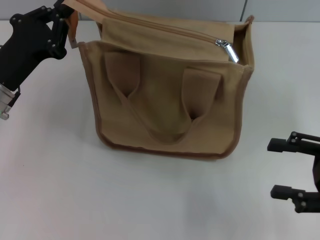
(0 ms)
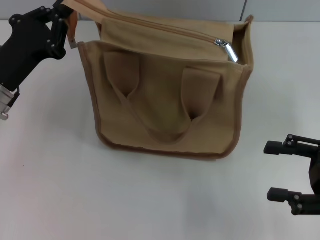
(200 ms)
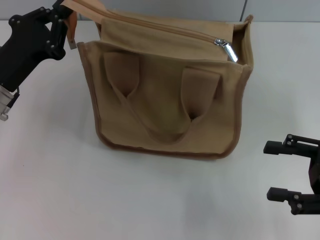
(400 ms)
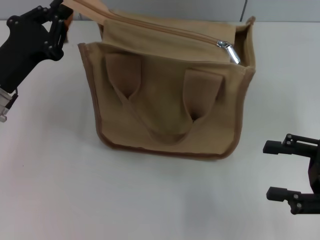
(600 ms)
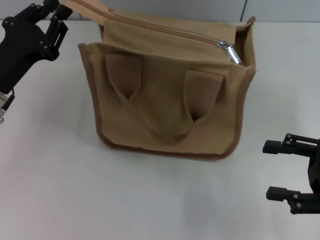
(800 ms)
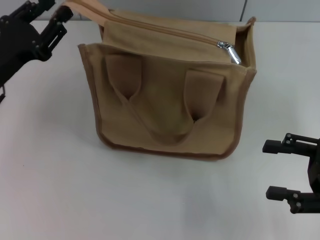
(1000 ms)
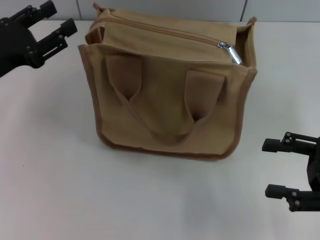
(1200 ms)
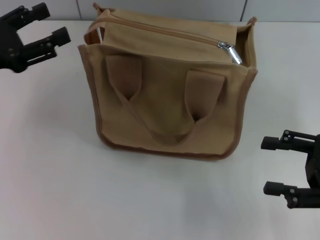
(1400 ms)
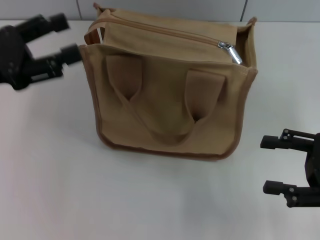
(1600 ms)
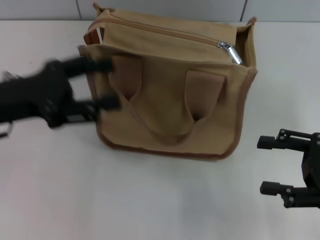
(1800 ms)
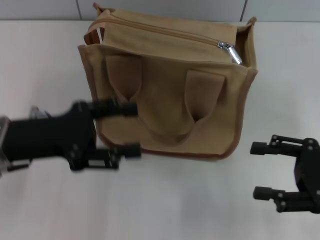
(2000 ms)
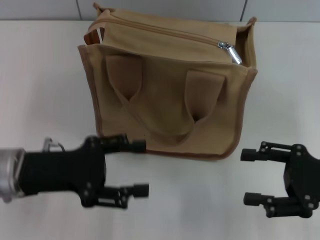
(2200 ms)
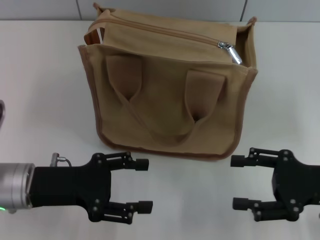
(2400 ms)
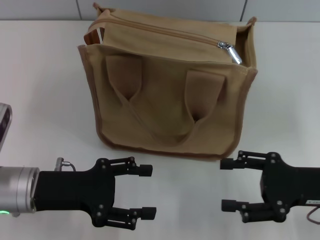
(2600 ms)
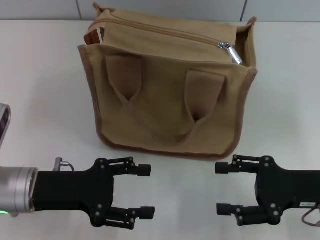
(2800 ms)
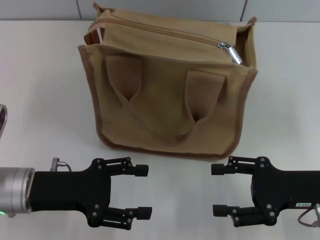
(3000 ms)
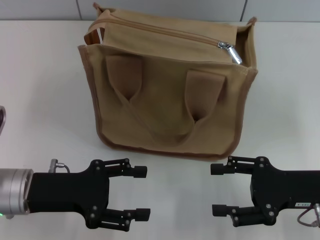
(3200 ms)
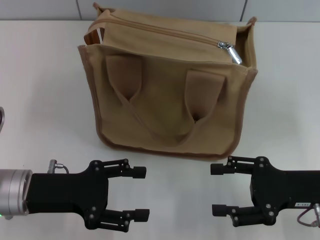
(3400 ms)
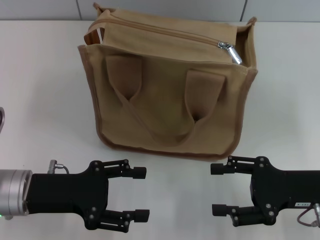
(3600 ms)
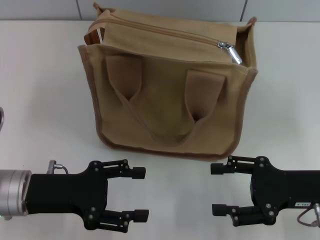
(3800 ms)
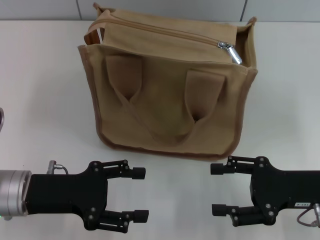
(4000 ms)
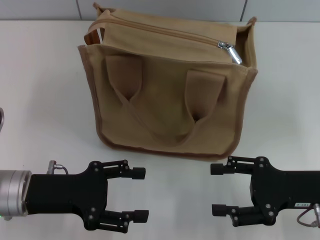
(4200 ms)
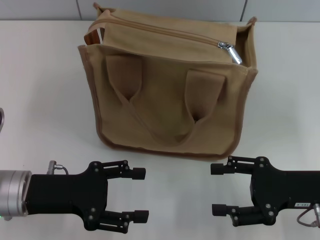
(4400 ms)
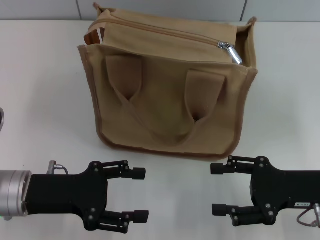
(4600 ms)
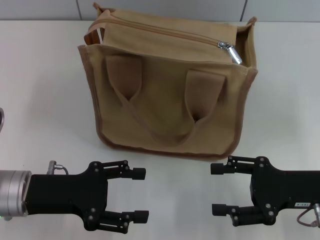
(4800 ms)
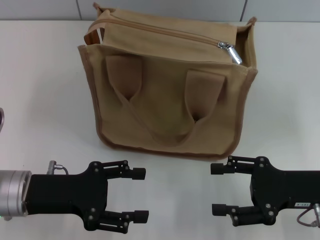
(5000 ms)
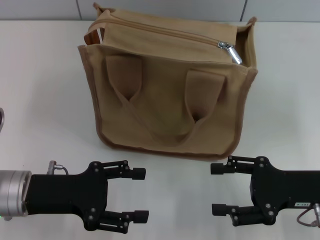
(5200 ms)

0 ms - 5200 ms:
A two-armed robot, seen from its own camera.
0 ms - 1800 ms: The left gripper heads upward, covering about 5 cm, and opens.
1800 ms - 3400 ms: The right gripper moves to the left, roughly 5 cm; the left gripper goes about 10 cm downward.
3400 ms - 5200 ms: Both grippers stay about where they are.

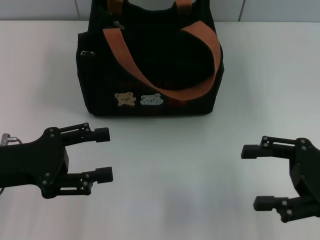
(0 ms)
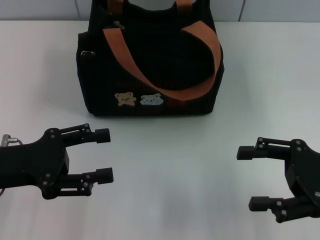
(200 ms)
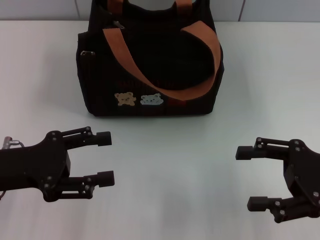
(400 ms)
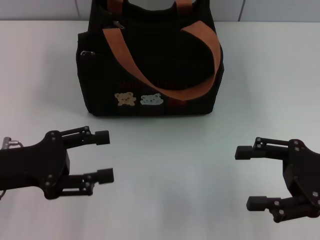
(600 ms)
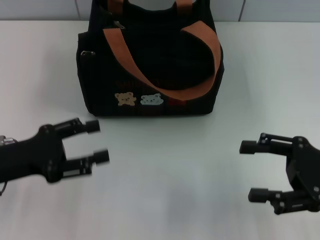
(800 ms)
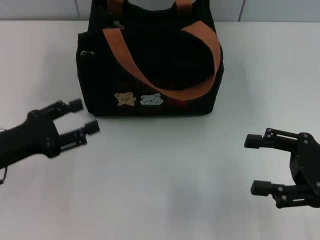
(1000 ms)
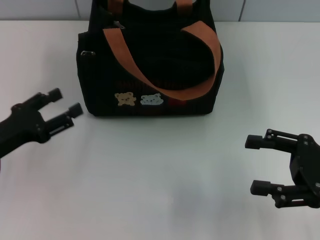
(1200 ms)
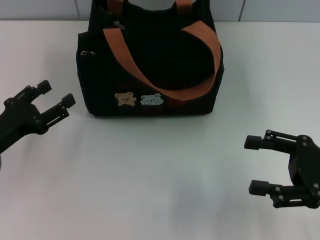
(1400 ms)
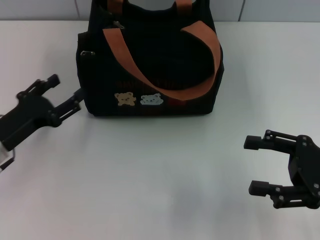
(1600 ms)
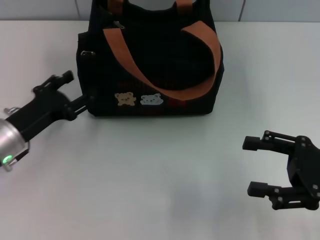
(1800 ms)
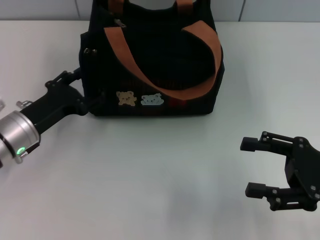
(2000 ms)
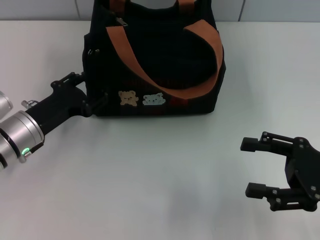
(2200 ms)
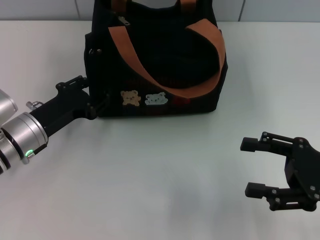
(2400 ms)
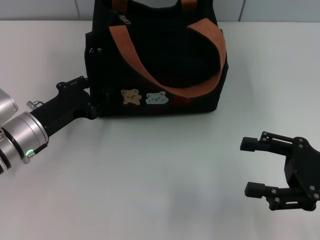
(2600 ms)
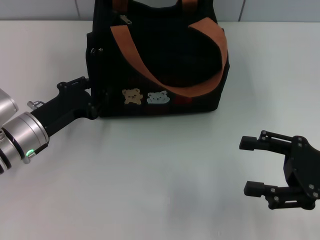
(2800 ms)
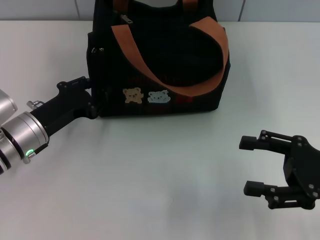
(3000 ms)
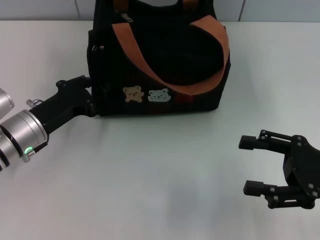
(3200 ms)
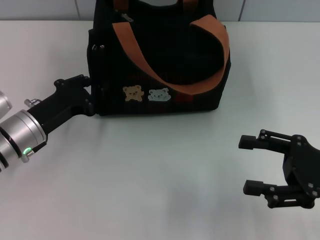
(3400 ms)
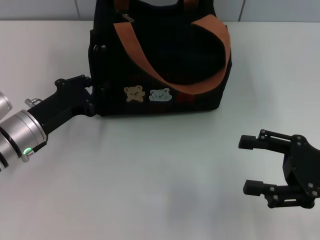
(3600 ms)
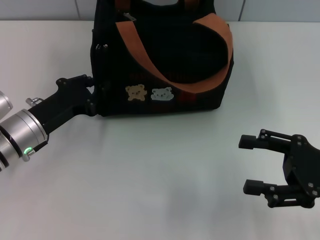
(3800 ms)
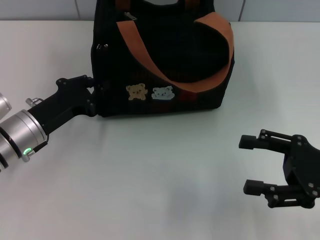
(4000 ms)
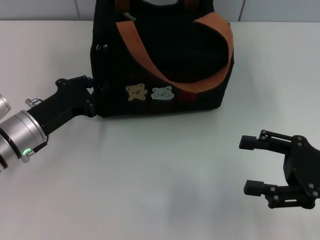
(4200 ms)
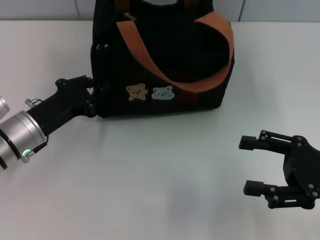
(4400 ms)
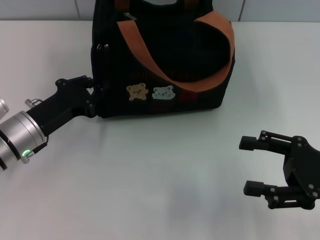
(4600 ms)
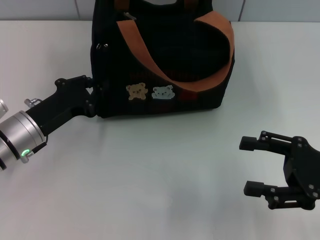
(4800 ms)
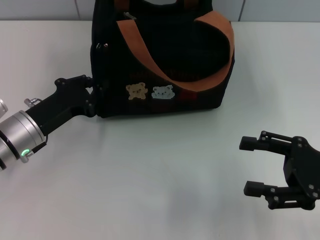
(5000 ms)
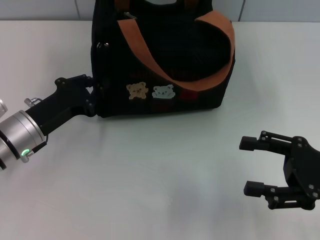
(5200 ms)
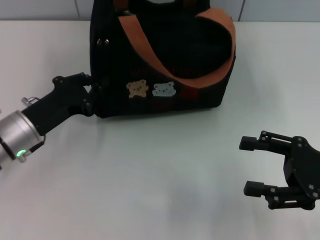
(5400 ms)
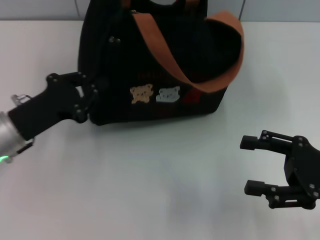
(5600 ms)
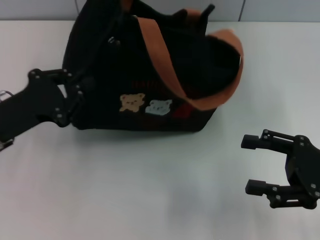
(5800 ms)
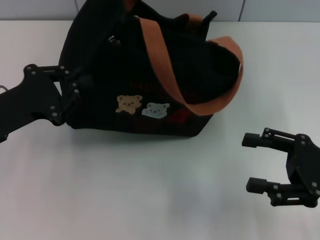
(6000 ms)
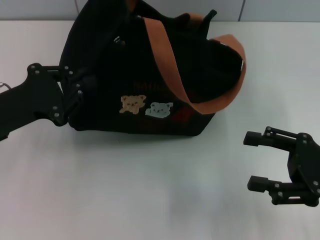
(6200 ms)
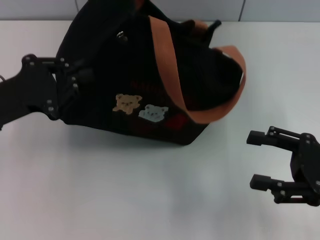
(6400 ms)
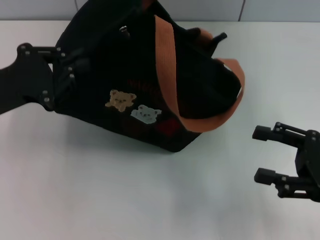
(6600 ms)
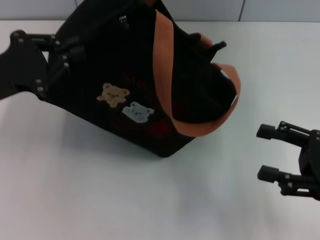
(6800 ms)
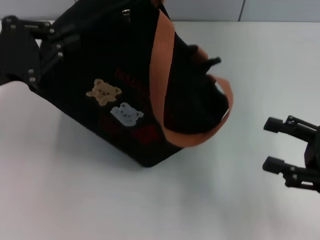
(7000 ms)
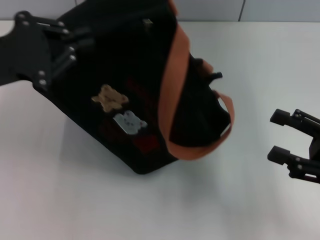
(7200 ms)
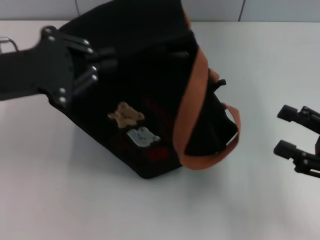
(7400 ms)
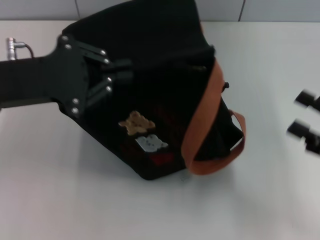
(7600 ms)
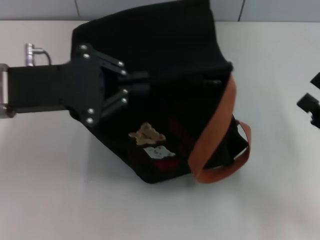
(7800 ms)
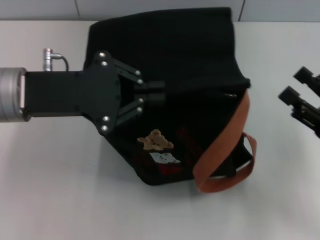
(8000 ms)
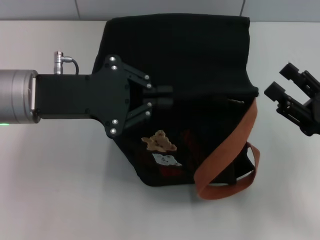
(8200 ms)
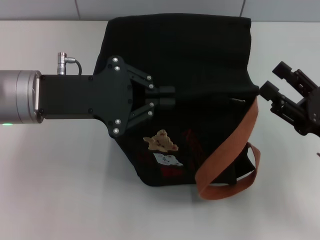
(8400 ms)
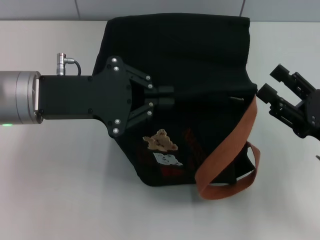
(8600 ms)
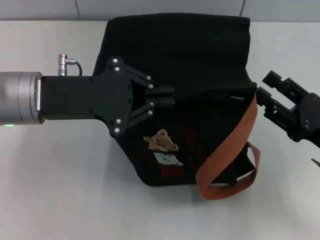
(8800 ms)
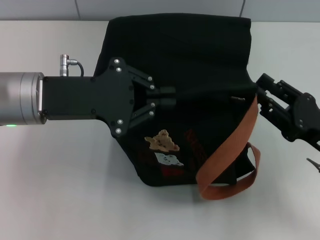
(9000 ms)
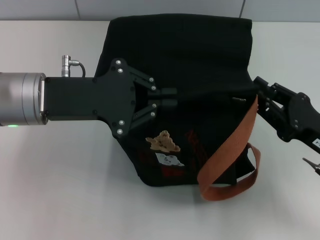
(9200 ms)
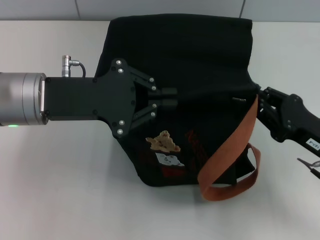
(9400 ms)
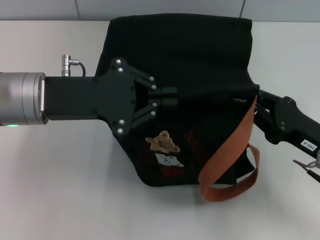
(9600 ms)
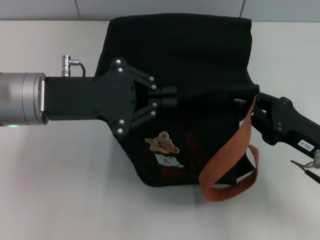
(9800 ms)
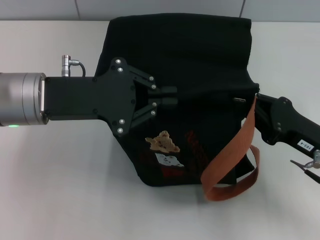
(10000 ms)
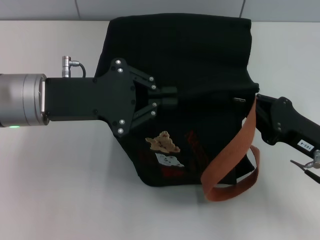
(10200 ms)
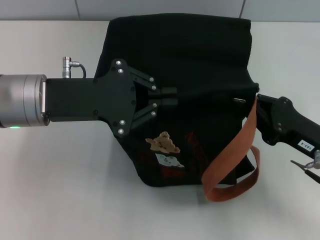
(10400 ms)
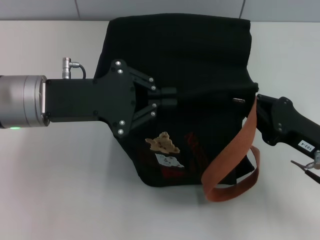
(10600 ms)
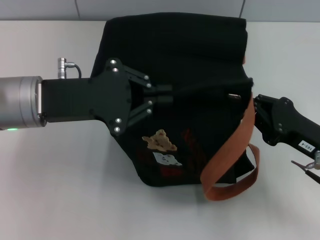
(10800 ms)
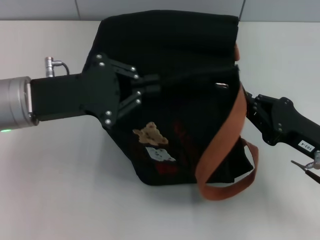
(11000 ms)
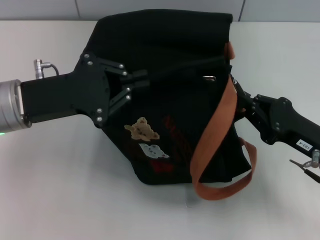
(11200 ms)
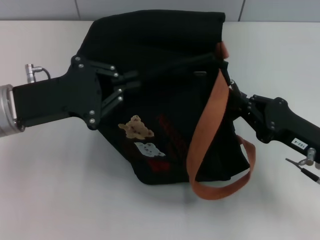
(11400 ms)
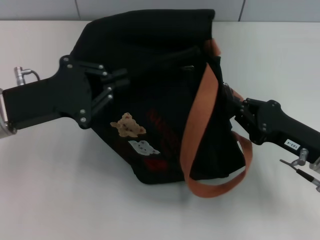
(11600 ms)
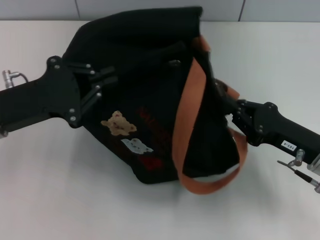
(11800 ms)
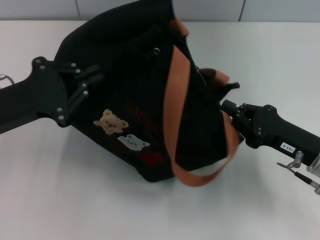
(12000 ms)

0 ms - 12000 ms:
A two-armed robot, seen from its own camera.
0 ms - 1600 ms: The left gripper shifts about 5 cm downward.
1600 ms - 3000 ms: The left gripper ends up about 5 cm from where it was, and closes.
3000 ms - 4400 ms: The two grippers keep their place.
4400 ms - 6000 ms: The left gripper moves upward, approximately 5 cm.
6000 ms - 7600 ms: The left gripper heads upward, covering approximately 10 cm.
7600 ms - 9000 ms: The right gripper is displaced to the left by about 5 cm.
9000 ms - 10400 ms: The right gripper closes.
10400 ms - 12000 ms: The left gripper is displaced to the left by some 5 cm.

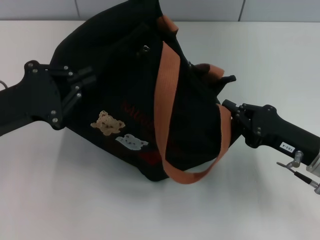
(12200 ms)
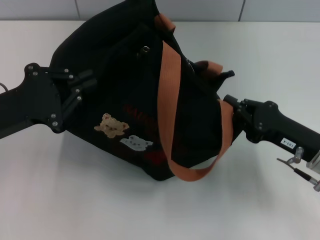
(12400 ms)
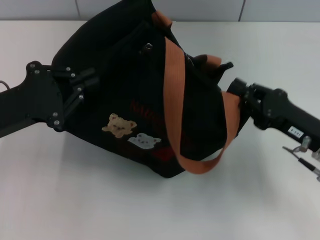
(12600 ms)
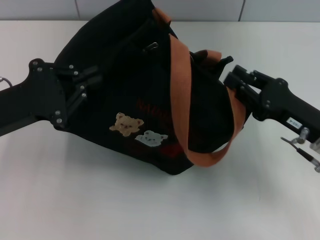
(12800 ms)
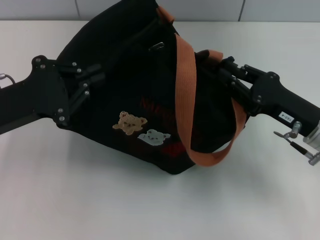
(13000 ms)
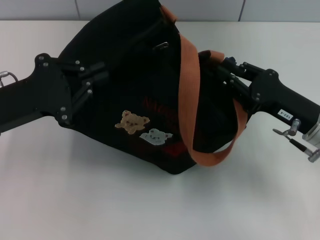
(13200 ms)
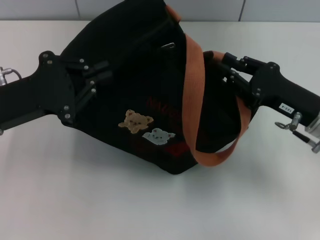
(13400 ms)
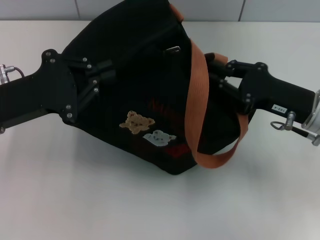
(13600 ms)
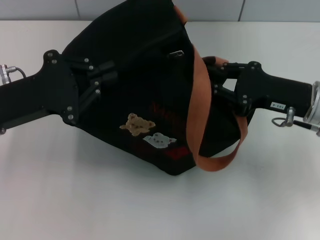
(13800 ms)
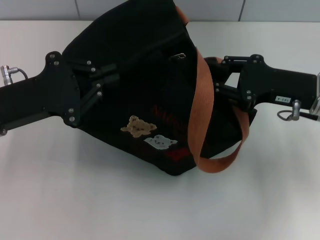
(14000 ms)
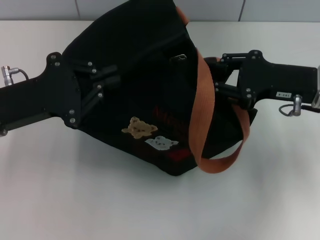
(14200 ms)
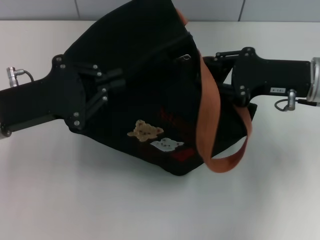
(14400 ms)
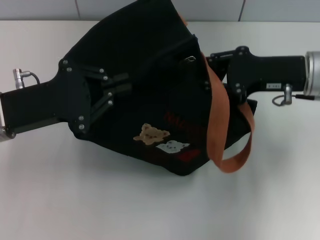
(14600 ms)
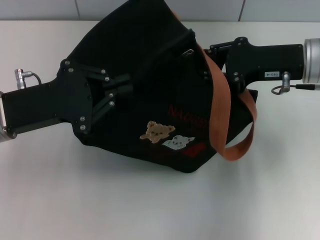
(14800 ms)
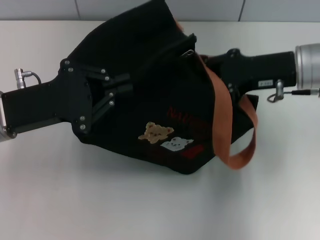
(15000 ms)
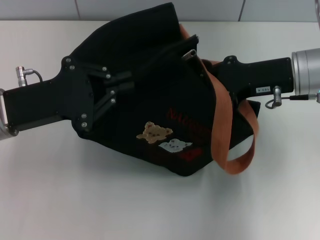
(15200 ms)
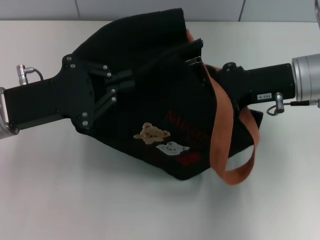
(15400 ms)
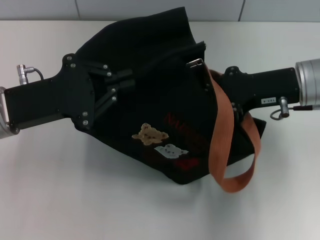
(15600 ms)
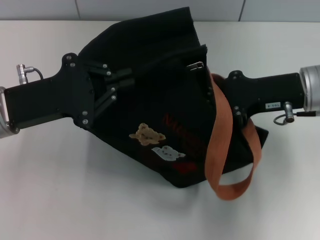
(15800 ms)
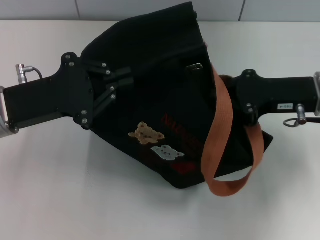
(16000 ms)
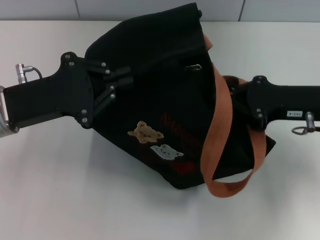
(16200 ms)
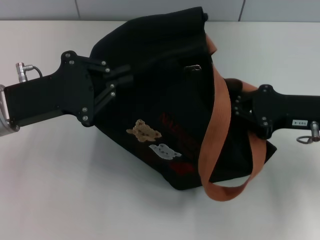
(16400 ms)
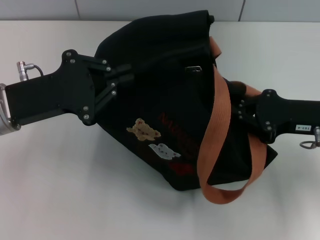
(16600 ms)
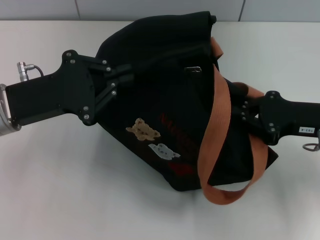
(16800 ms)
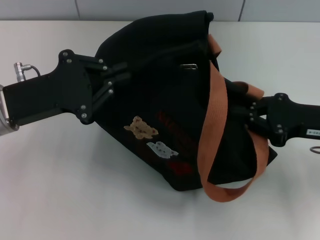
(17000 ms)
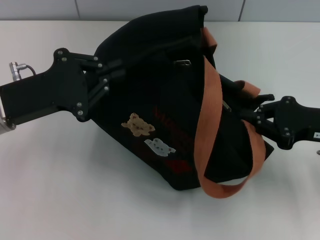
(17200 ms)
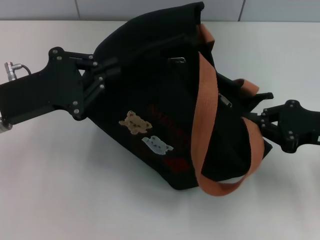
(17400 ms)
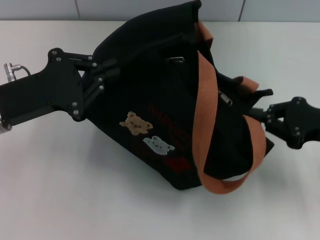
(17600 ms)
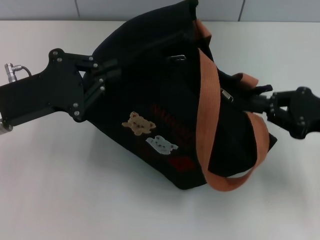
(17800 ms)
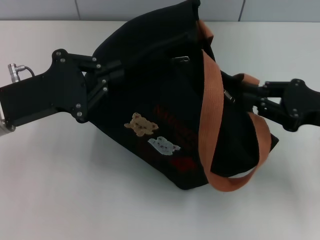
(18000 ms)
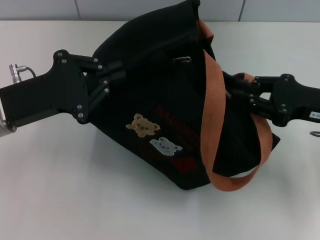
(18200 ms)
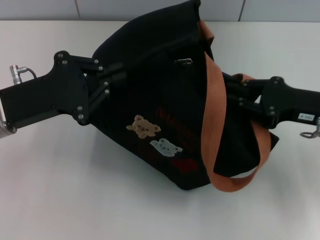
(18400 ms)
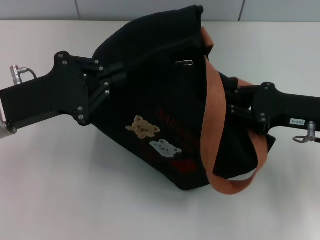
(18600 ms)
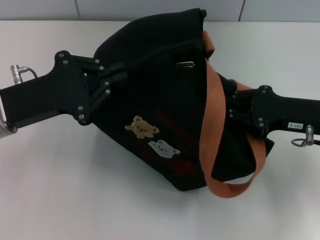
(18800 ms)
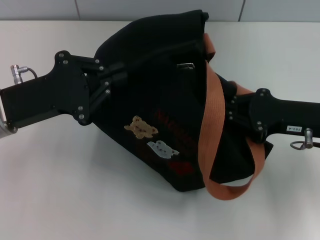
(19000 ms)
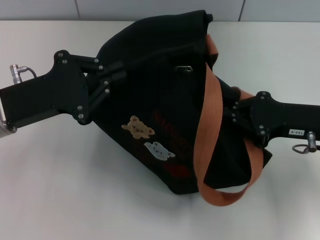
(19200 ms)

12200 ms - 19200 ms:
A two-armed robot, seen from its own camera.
12200 ms - 13600 ms: The right gripper shifts approximately 5 cm forward.
13600 ms - 15000 ms: The right gripper moves upward and forward, about 10 cm.
15000 ms - 16400 ms: The right gripper moves backward, roughly 5 cm, and closes.
16400 ms - 19200 ms: The grippers make only small movements.
